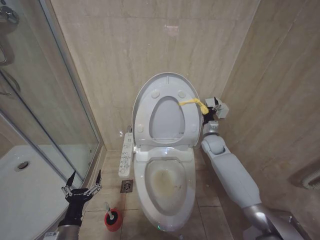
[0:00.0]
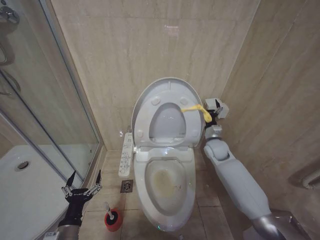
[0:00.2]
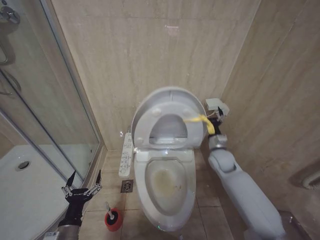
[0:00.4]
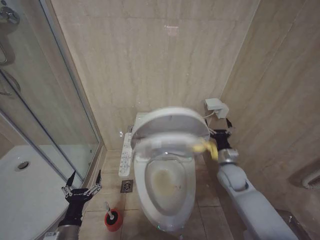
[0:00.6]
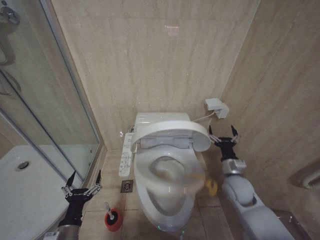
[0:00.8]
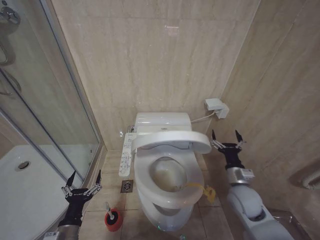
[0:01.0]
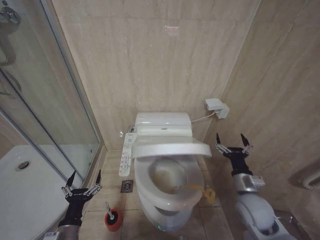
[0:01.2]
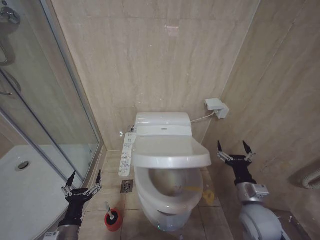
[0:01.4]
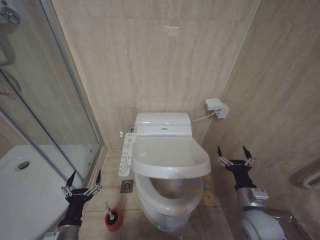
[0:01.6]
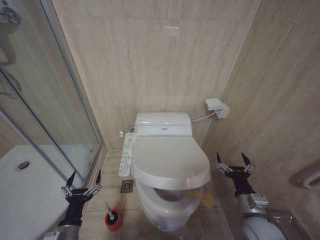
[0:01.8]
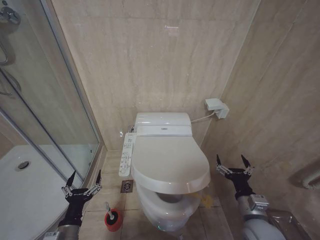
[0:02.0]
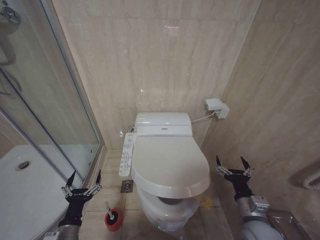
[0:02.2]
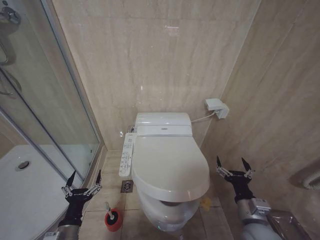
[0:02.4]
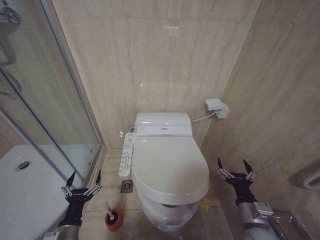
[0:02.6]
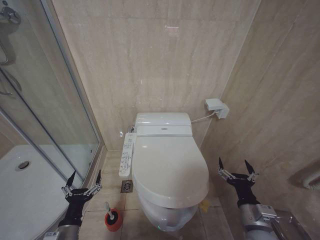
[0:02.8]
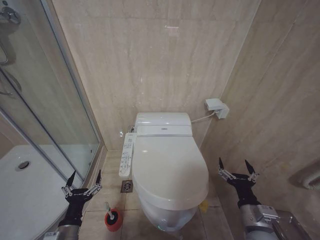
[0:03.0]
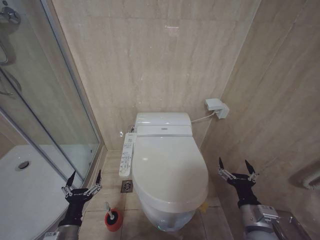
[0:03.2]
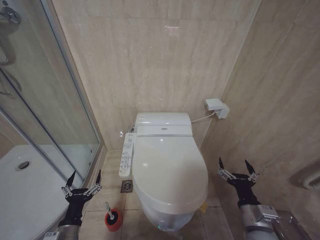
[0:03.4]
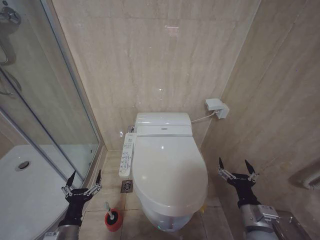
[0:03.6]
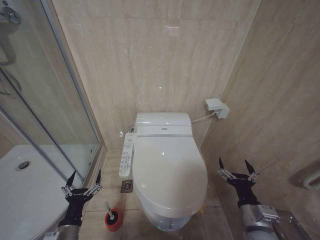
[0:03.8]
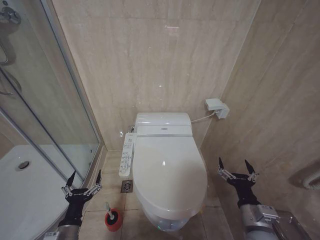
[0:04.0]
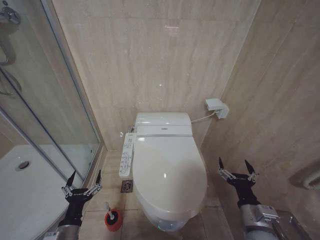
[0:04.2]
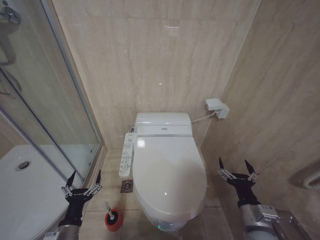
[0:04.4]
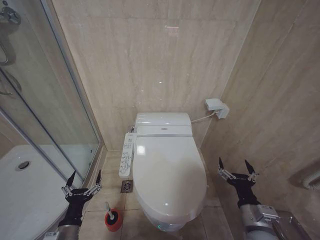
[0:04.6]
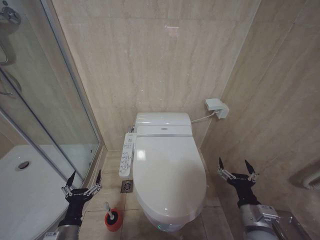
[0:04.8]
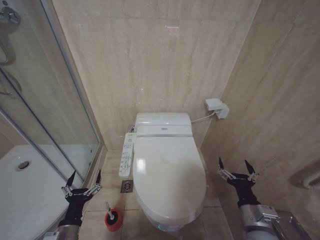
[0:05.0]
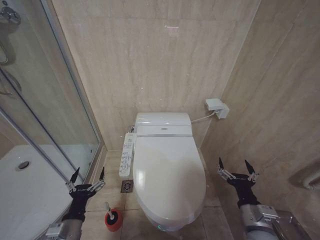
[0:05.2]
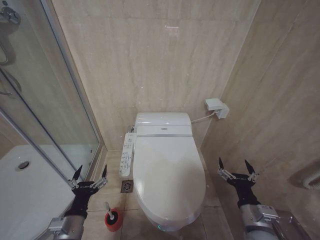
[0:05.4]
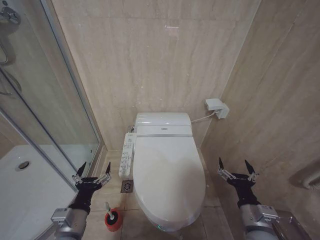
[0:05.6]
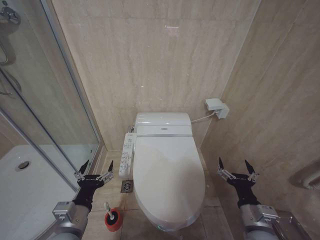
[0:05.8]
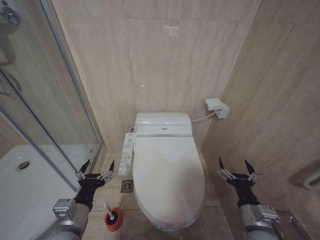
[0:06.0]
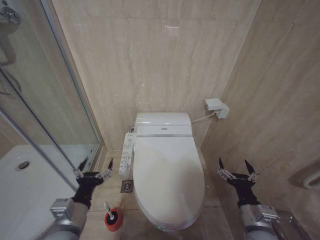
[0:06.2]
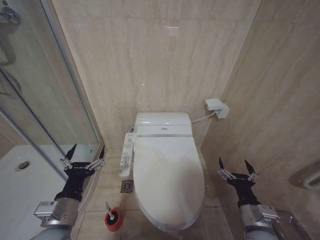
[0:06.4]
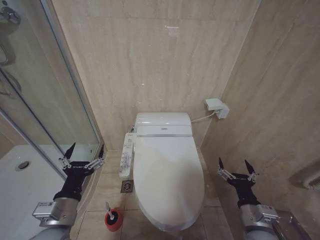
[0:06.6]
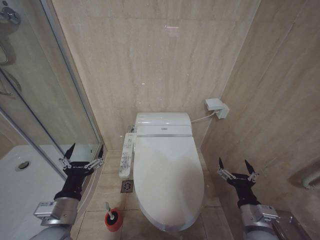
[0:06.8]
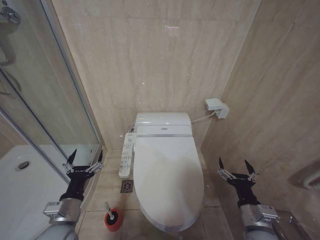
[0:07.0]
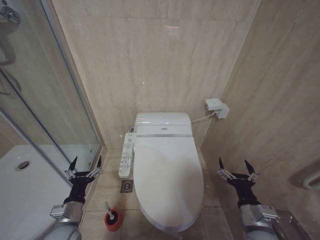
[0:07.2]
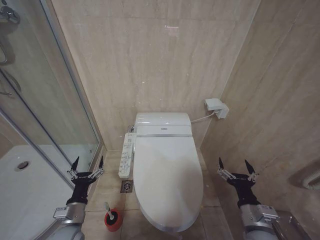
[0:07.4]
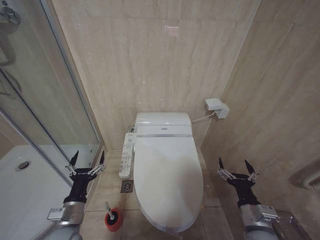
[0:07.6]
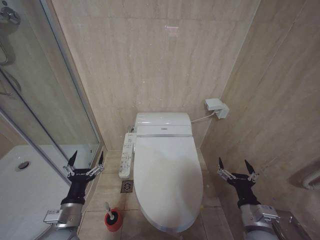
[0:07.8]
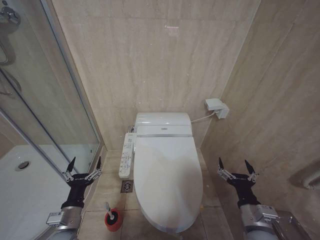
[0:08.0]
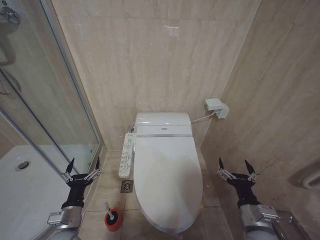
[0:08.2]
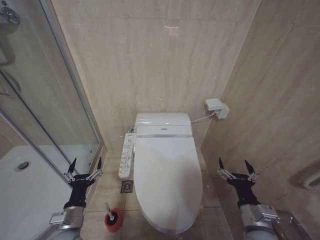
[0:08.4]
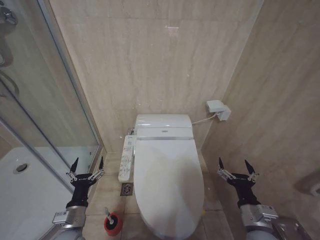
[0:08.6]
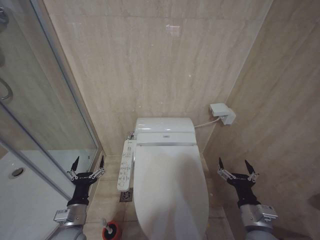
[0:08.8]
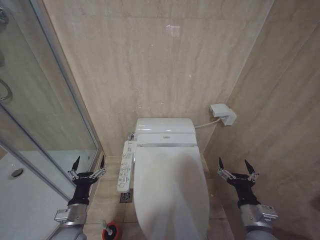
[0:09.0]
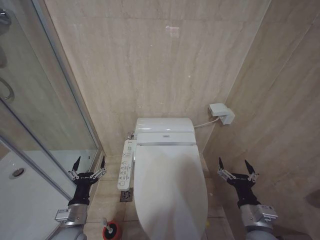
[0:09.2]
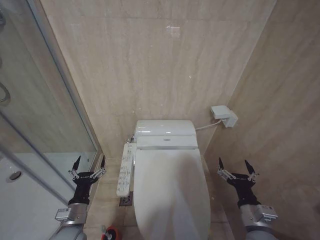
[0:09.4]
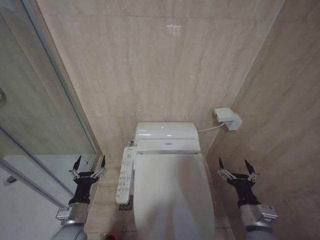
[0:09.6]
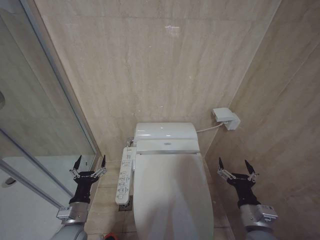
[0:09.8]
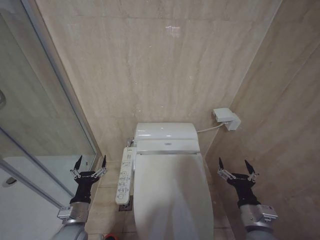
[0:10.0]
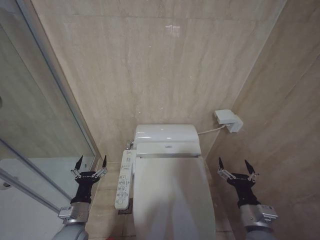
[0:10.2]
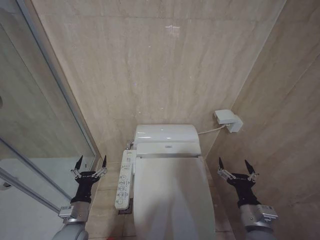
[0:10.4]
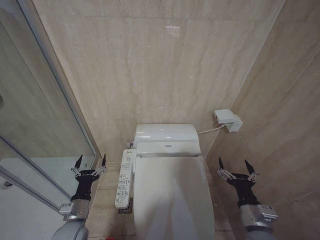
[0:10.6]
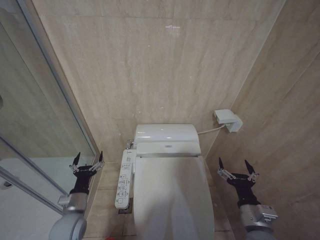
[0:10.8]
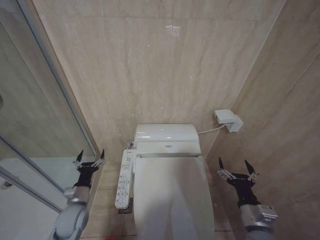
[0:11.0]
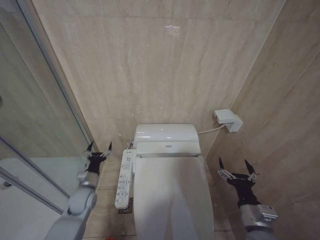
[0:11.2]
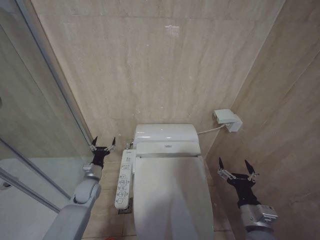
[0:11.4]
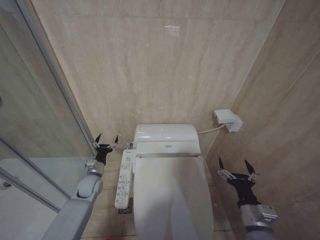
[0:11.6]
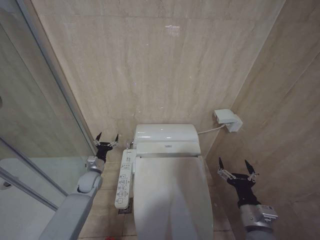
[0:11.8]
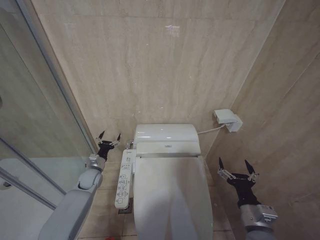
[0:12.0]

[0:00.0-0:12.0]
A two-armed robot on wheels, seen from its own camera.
Task of the whole recording: Open the toilet lid, clean the toilet bowl with a toilet brush, close the toilet lid, and flush.
0:00.0 to 0:01.6: The right gripper moves backward, about 30 cm.
0:01.6 to 0:03.0: The right gripper moves backward, some 5 cm.
0:03.0 to 0:04.4: Both grippers stay about where they are.
0:04.4 to 0:06.0: The left gripper shifts roughly 10 cm upward.
0:06.0 to 0:07.6: The left gripper is displaced downward by about 10 cm.
0:07.6 to 0:09.0: There are only small adjustments of the grippers.
0:09.0 to 0:10.4: Both grippers stay about where they are.
0:10.4 to 0:12.0: The left gripper heads forward, covering about 20 cm.

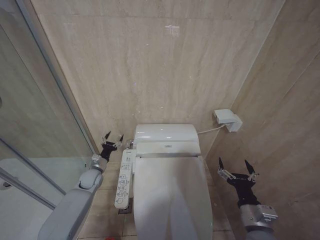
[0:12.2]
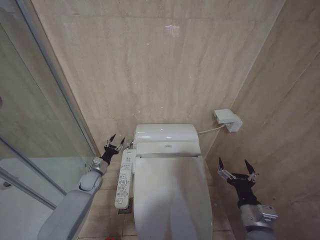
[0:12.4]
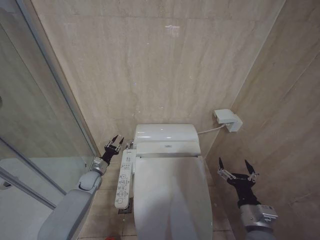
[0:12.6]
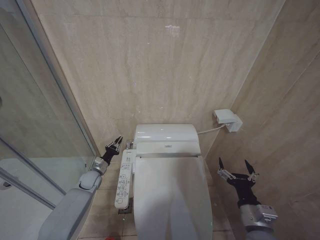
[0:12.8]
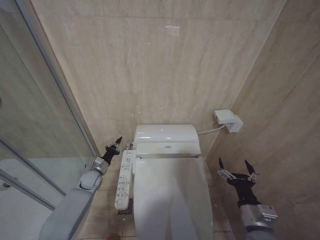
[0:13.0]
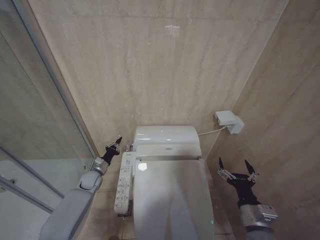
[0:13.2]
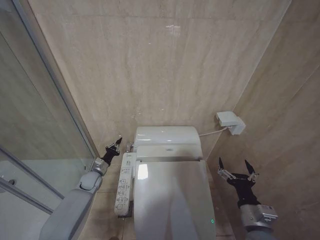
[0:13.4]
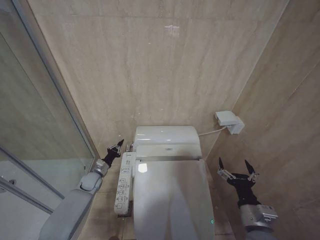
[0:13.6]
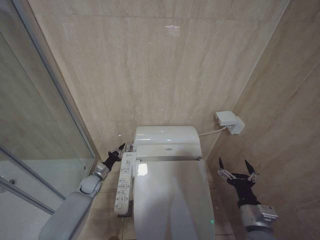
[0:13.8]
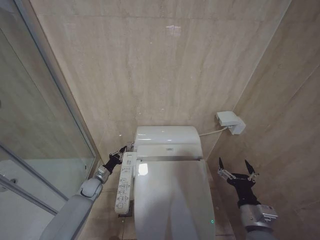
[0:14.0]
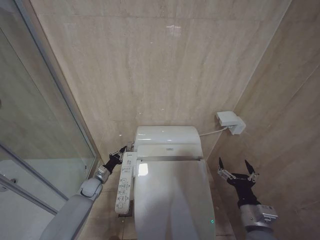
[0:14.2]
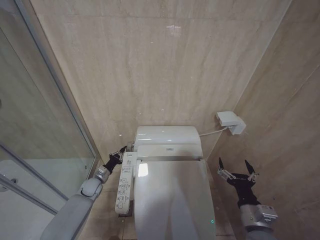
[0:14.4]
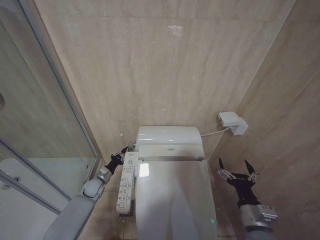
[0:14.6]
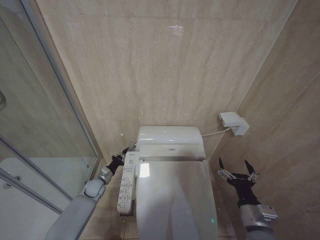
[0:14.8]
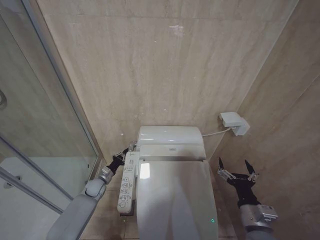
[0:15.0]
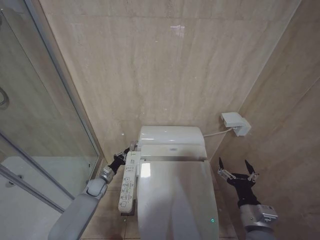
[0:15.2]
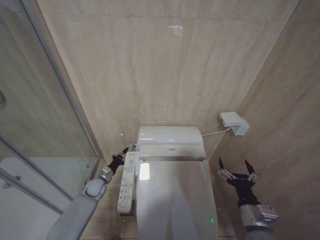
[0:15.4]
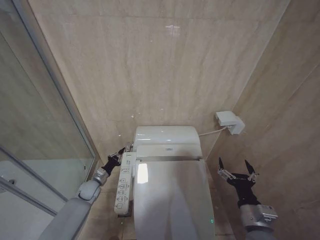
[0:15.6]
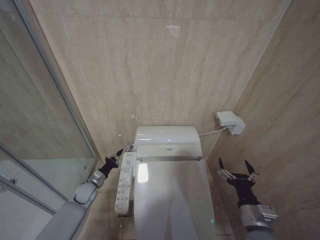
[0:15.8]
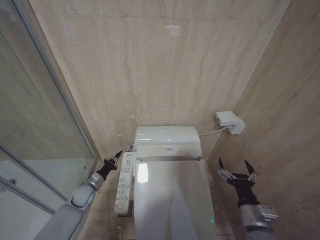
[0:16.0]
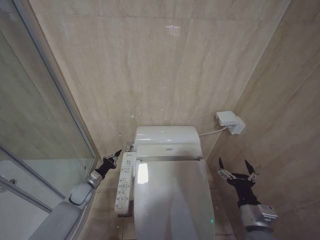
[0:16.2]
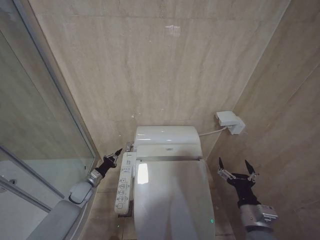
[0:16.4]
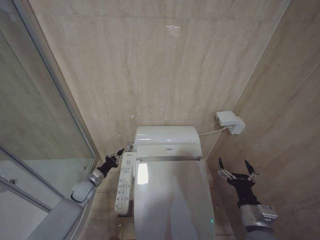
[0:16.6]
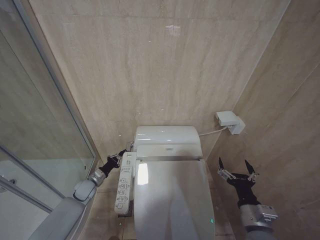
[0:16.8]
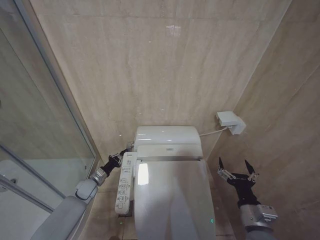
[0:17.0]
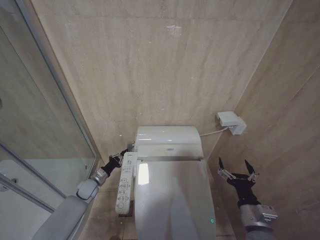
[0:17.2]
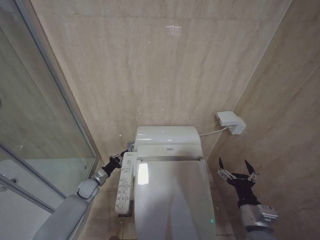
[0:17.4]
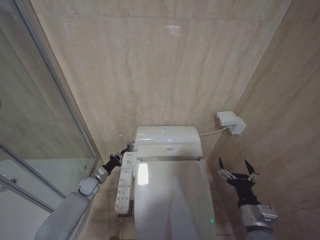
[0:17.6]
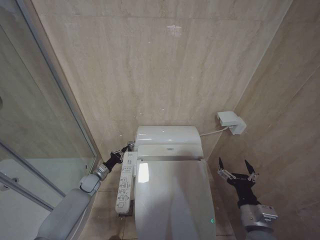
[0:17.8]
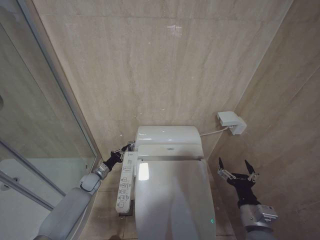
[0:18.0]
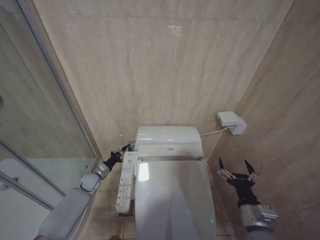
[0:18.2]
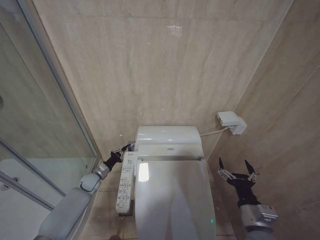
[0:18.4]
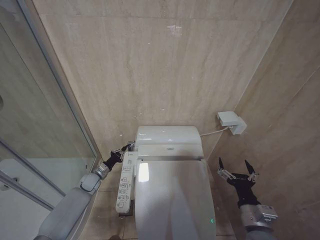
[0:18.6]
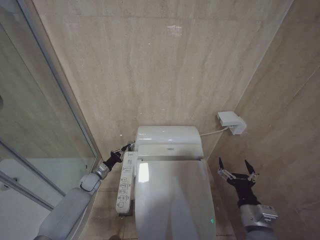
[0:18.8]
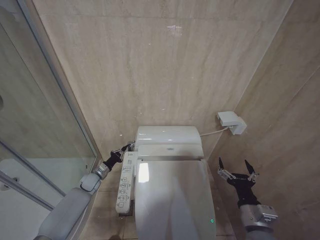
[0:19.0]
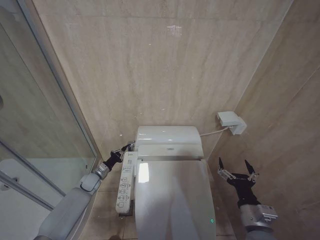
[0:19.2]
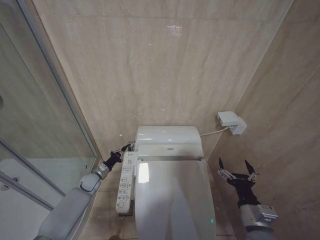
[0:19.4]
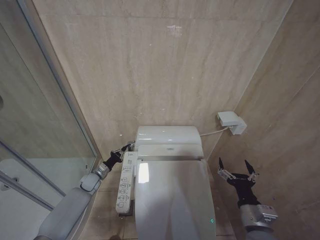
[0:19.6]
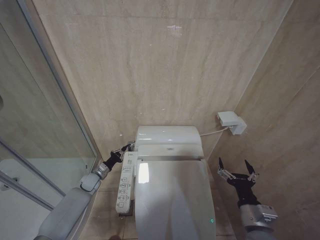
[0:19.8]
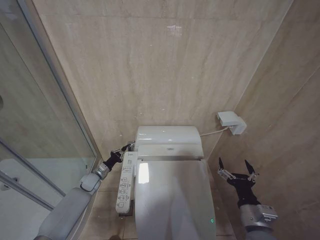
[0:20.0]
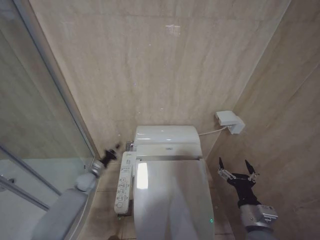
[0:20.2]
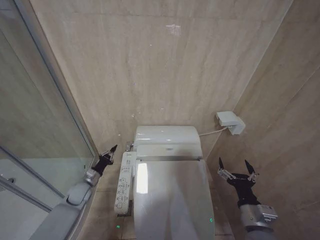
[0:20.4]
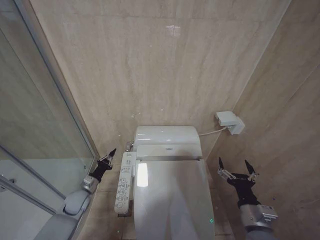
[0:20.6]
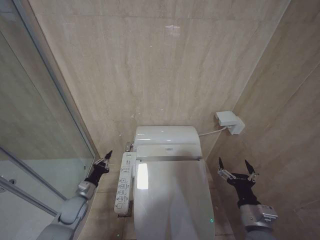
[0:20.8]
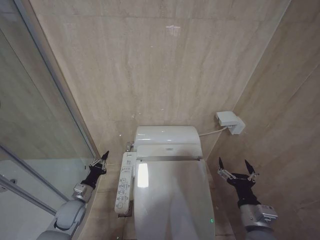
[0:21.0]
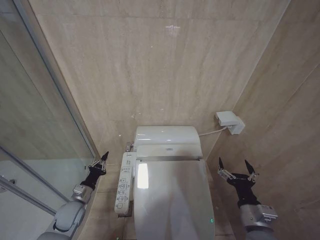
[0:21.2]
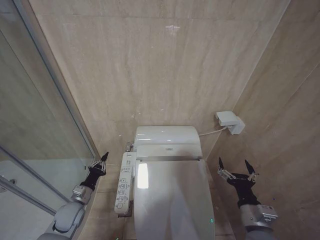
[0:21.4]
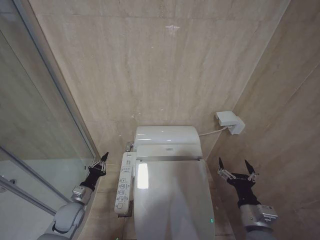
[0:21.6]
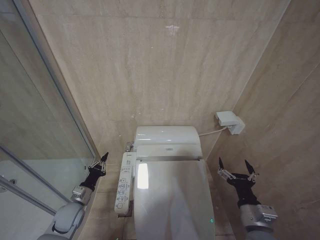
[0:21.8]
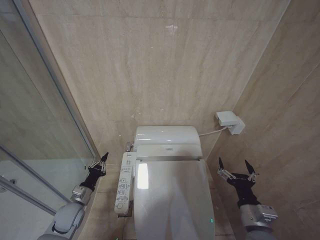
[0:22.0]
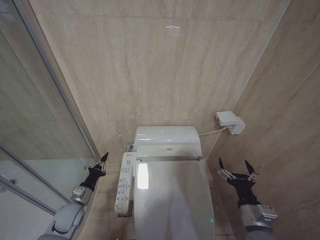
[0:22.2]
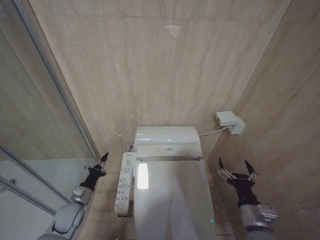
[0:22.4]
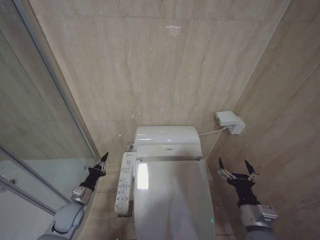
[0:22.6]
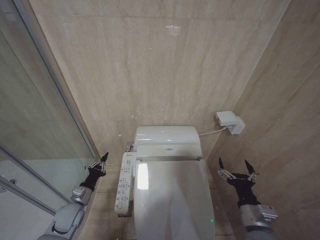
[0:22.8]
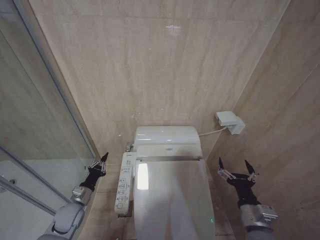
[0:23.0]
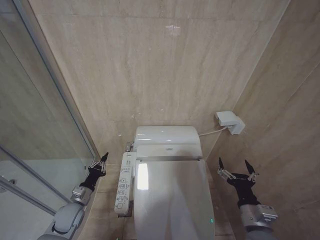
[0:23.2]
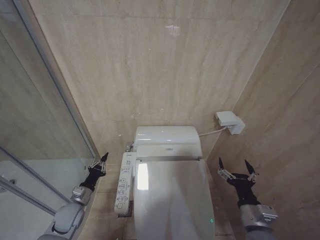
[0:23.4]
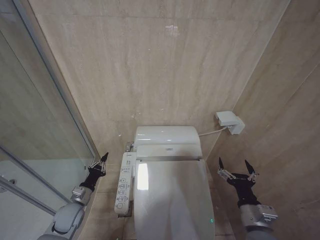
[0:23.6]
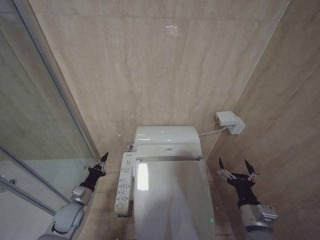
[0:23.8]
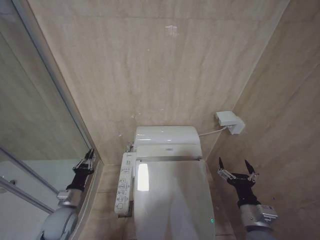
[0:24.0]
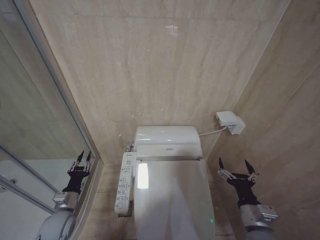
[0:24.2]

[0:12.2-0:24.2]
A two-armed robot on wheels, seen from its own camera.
Task of the whole recording: Open the toilet lid, clean the toilet bowl with a toilet brush, close the toilet lid, and flush.
0:12.2 to 0:13.8: The left gripper closes up.
0:13.8 to 0:15.2: The grippers move only a little.
0:15.2 to 0:16.6: The left gripper moves roughly 5 cm.
0:16.6 to 0:18.2: The left gripper shifts about 5 cm forward.
0:18.2 to 0:19.8: Both grippers stay put.
0:19.8 to 0:21.2: The left gripper shifts about 15 cm backward.
0:21.2 to 0:22.6: Both grippers stay put.
0:22.6 to 0:24.2: The grippers move only a little.
